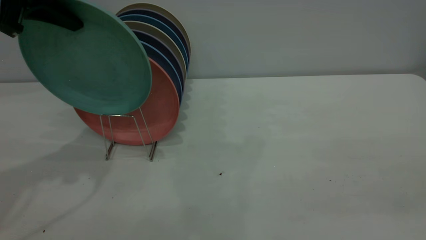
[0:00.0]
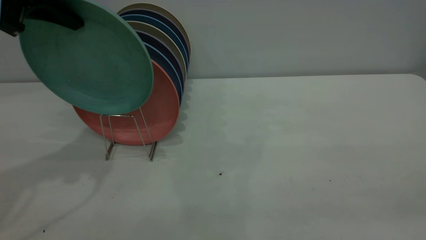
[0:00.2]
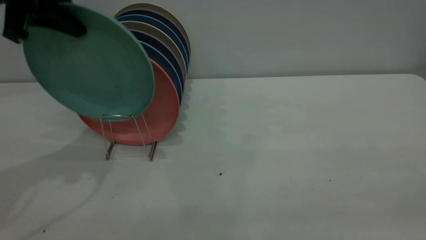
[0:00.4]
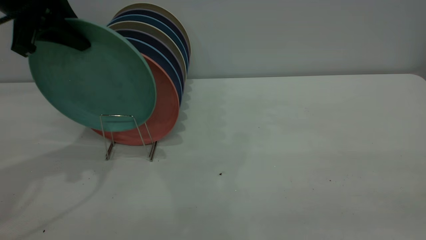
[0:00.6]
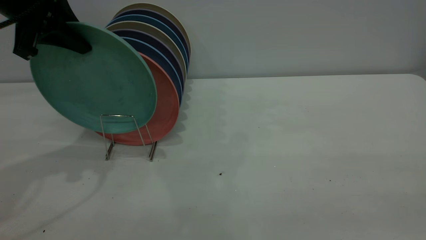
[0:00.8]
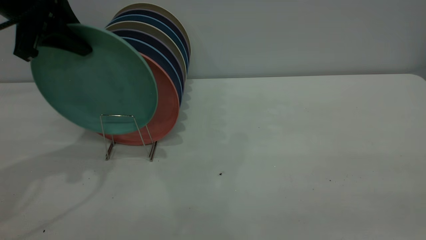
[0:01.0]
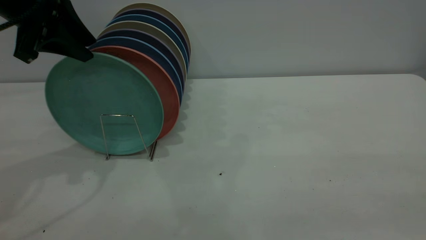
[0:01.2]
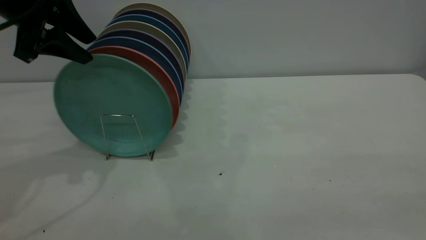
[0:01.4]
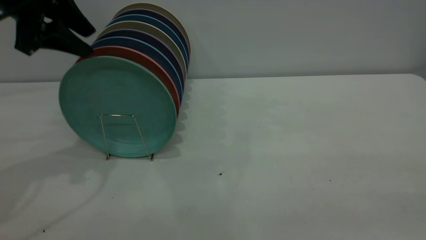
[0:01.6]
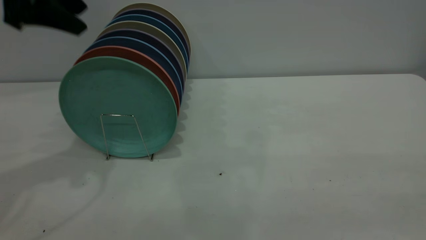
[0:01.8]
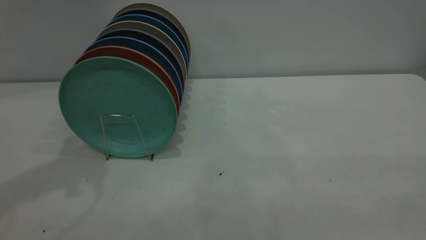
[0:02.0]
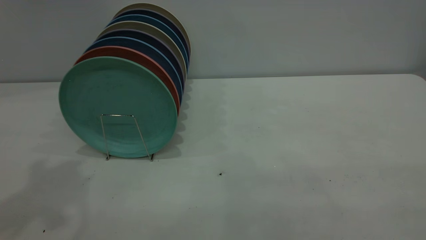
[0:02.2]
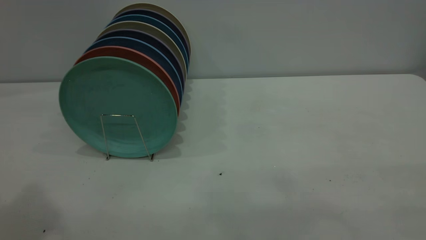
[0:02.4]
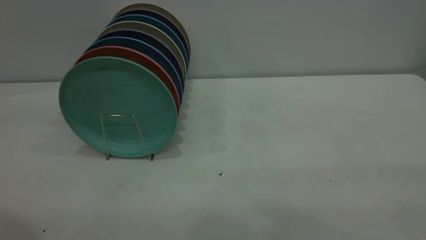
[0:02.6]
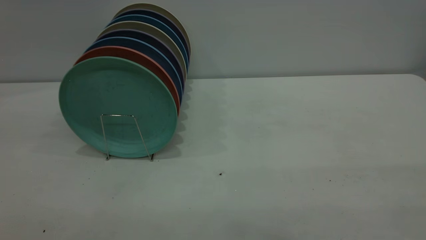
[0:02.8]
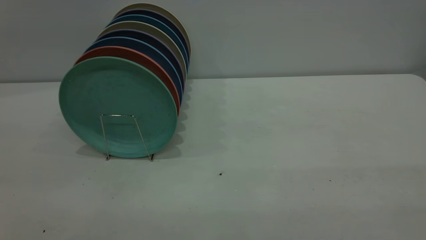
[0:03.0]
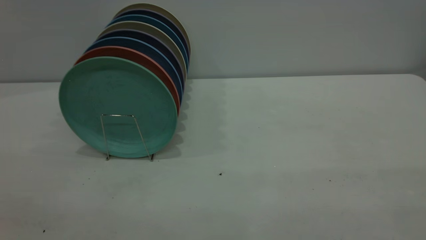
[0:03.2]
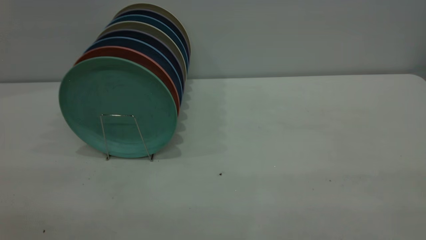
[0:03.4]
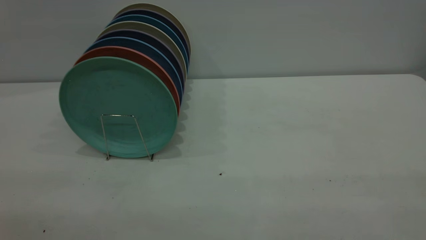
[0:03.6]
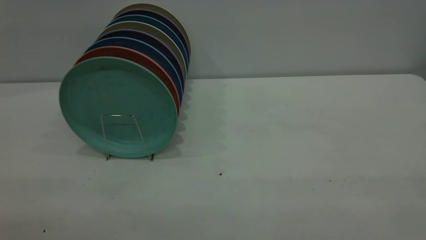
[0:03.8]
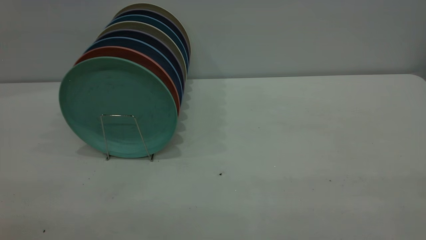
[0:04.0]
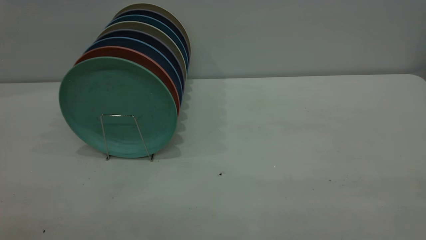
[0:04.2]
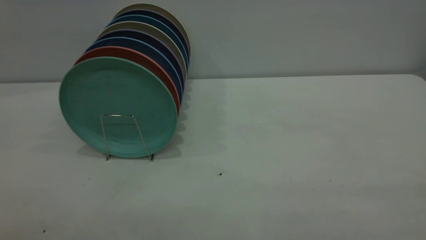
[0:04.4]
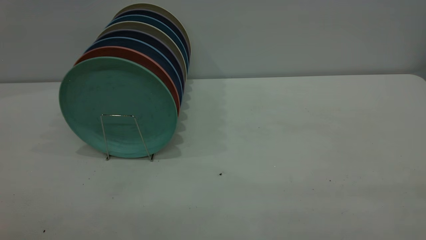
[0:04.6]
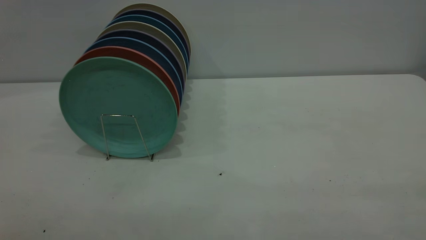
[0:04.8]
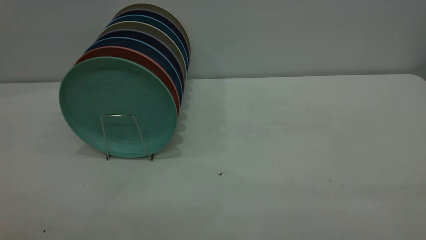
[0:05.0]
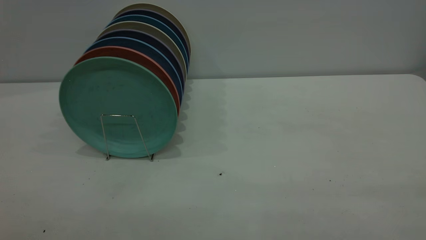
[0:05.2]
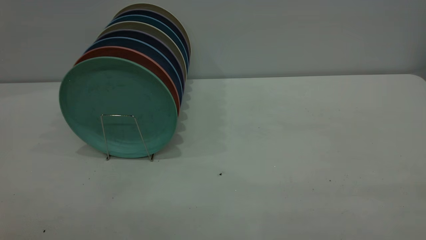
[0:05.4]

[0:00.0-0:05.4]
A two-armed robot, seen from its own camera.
Task of the whole recording: the right gripper grasp the green plate, the right gripper pass the green plate to the left gripper, and the left gripper place the green plate on the plate rack.
Step, 0:00.0 to 0:01.6: Place the plate on the shelf.
0:00.0 to 0:01.4: The left gripper opens up.
0:01.4 to 0:02.8: The left gripper travels backward and upward by roughly 30 cm.
